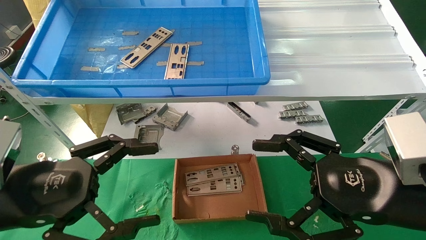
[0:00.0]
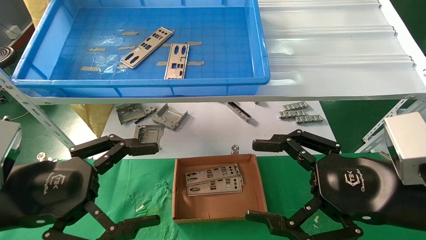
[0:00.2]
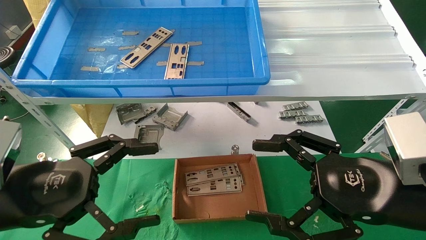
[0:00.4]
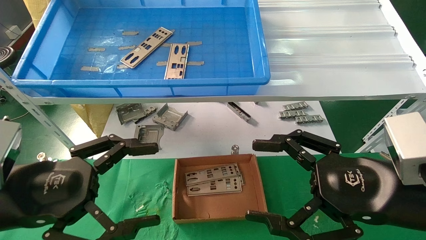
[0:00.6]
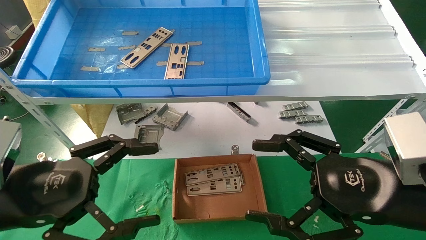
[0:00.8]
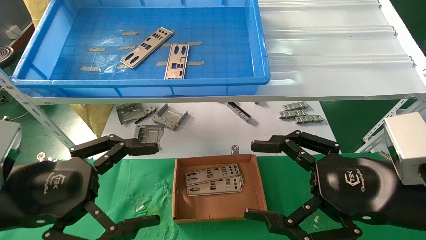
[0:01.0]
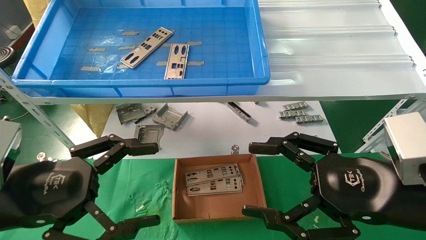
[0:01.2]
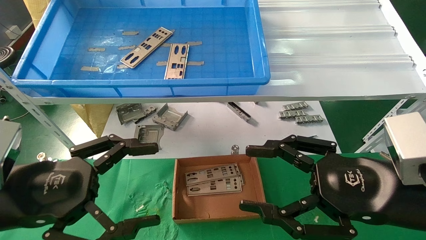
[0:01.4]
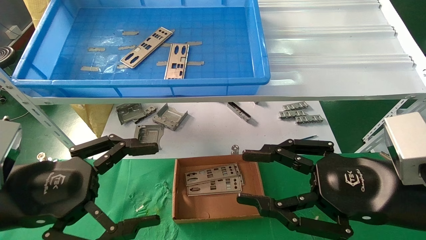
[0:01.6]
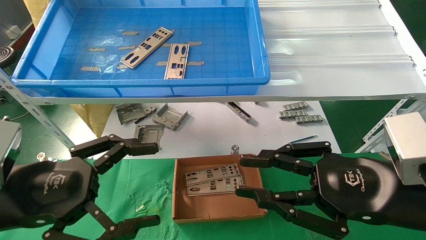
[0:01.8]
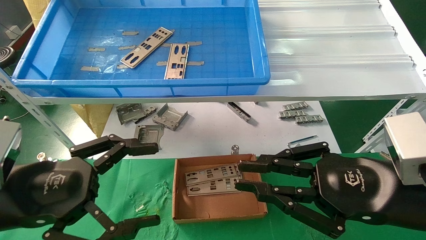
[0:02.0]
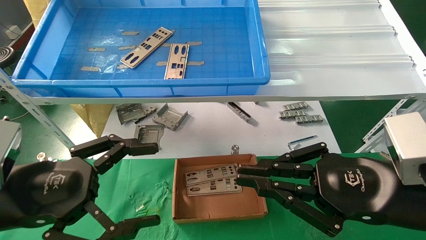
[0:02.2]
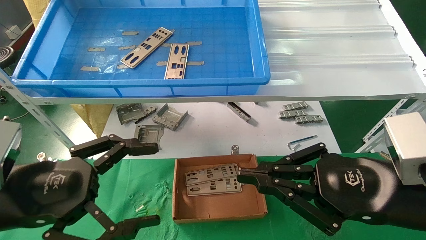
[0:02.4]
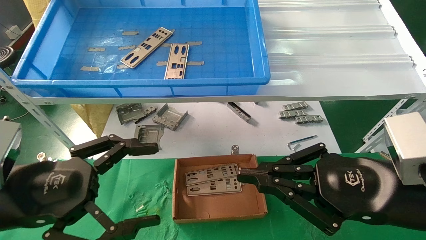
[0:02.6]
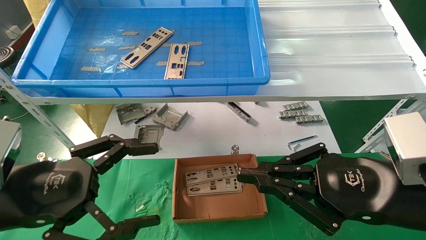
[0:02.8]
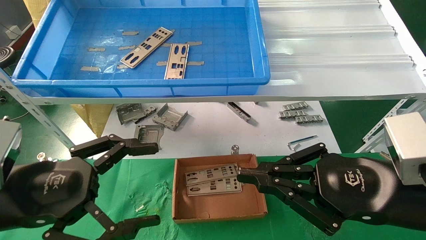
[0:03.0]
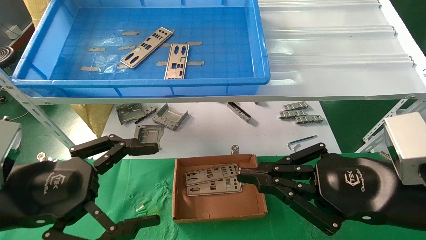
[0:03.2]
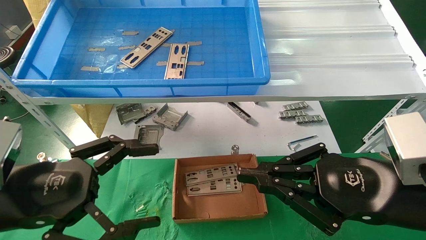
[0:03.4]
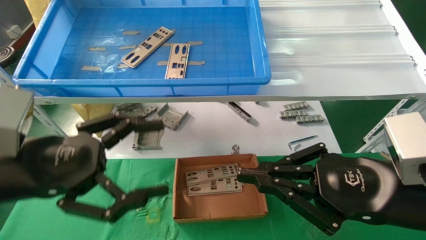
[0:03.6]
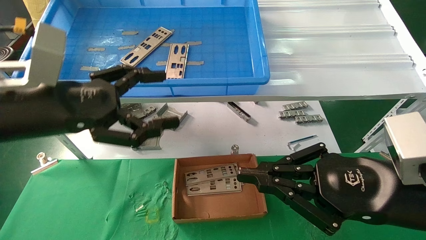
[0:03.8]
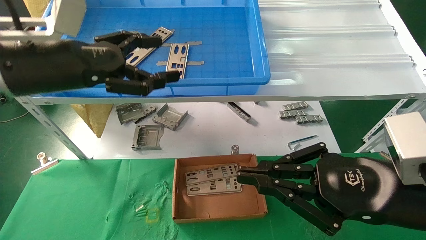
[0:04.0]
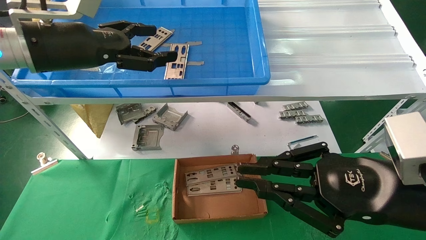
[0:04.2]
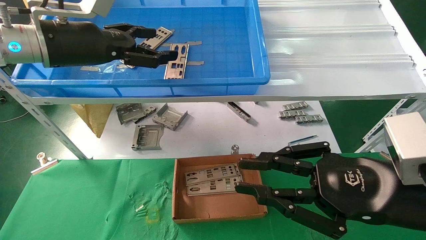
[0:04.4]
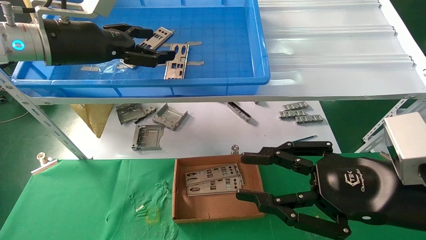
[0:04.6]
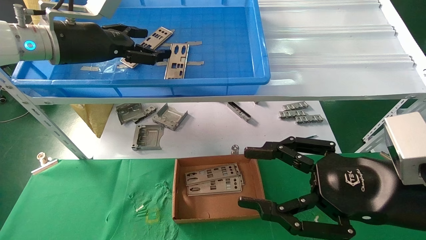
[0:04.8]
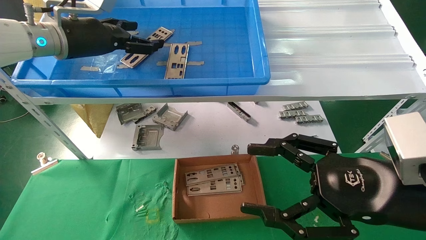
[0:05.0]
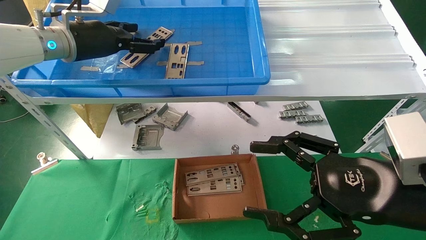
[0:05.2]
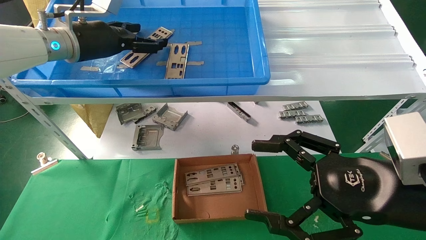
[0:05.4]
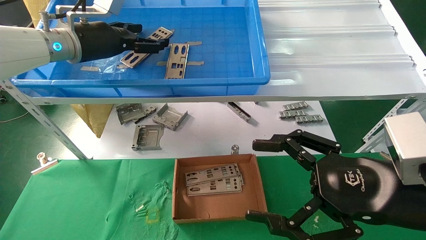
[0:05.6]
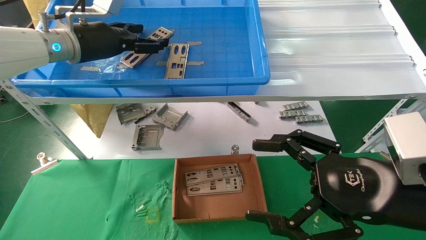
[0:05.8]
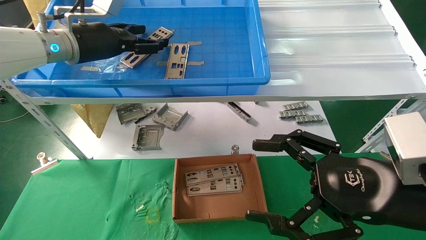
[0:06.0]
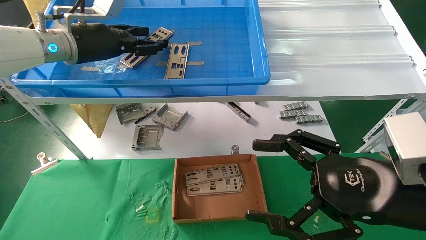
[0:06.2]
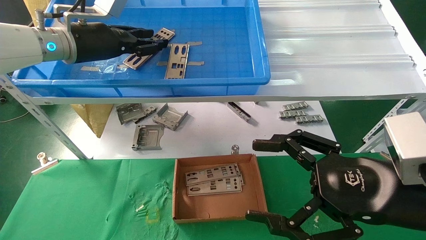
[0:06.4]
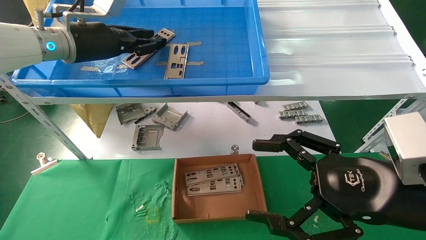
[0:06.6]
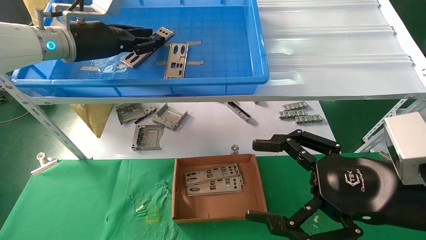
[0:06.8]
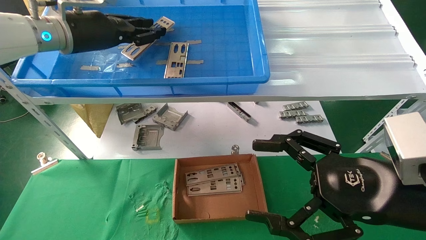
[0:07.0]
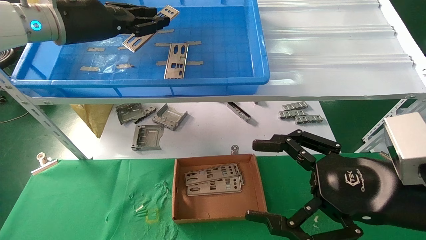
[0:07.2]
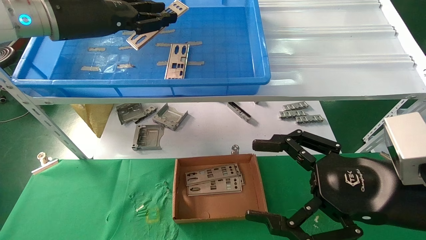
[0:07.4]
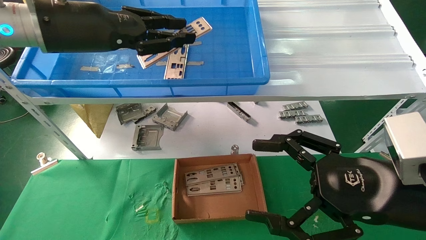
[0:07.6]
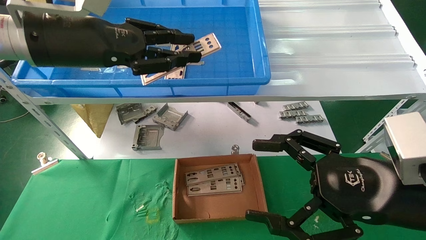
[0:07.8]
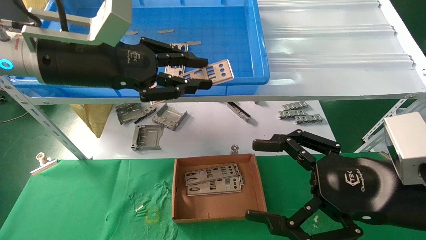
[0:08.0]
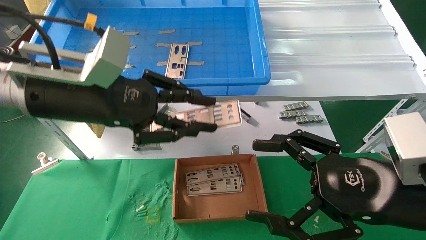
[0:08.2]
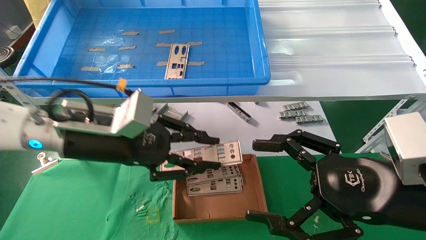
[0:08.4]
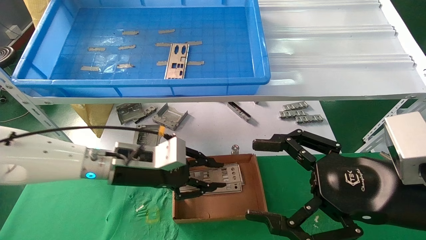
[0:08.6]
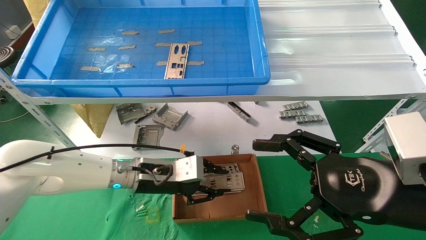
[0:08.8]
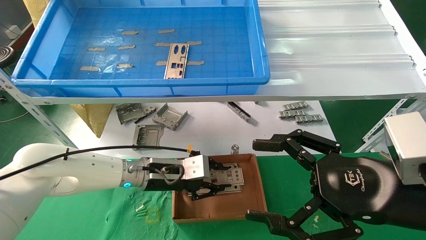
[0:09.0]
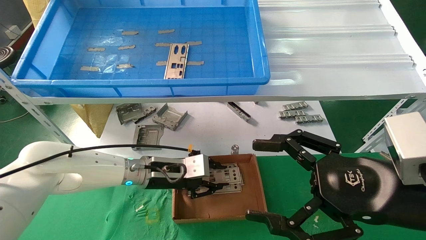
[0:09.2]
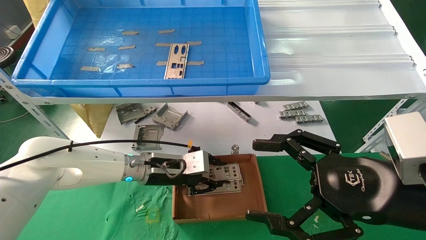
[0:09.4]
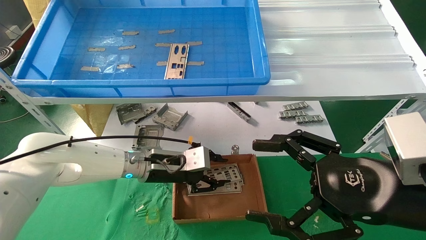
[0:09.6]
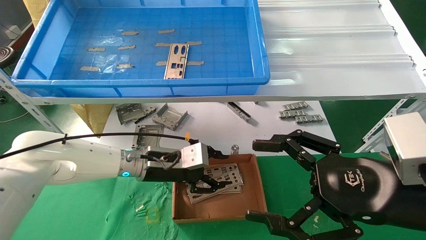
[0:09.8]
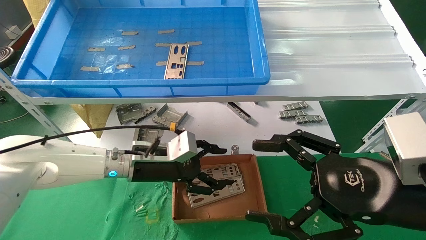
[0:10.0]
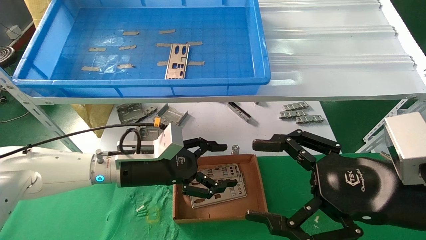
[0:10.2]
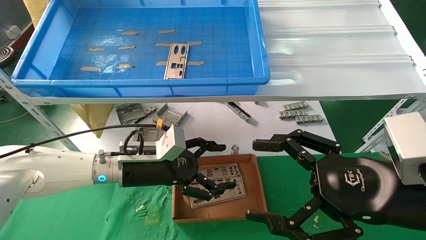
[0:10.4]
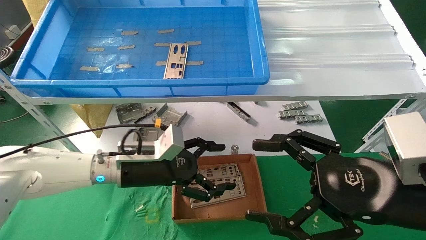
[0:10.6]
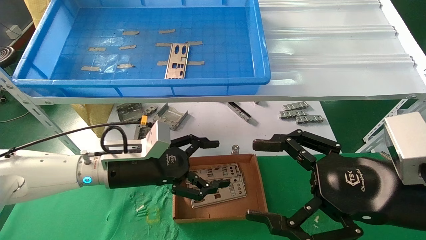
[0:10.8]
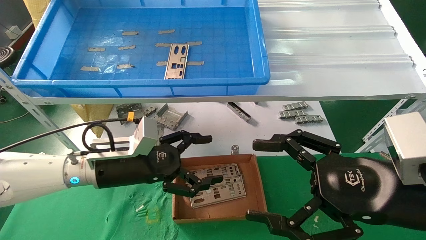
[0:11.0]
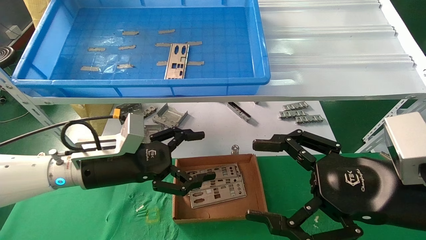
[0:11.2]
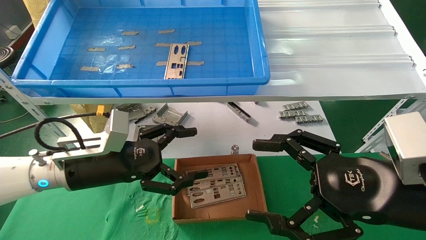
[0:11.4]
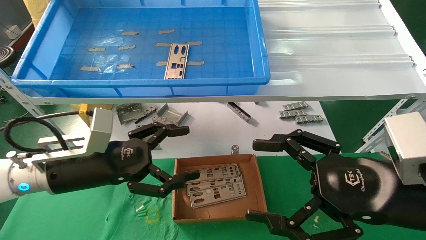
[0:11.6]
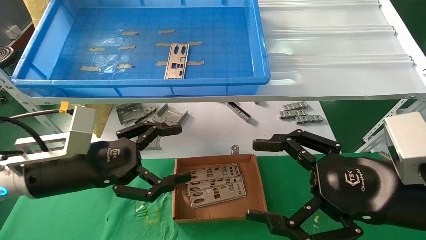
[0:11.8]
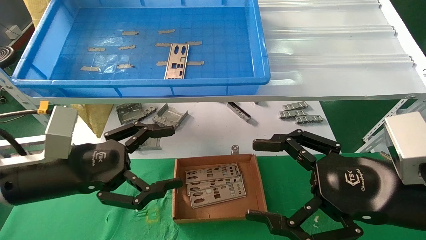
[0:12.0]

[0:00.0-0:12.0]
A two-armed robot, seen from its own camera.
Task of the whole recording: pick up the parts on the tray and put them in the cardboard box.
Step, 0:03.8 to 0:06.8: Pick up the IO bracket from the container box.
Step, 0:07.0 to 0:09.6: Place the IO bracket into the ingredient slot.
0:00.0 to 0:01.6: The right gripper closes up.
0:01.6 to 0:03.0: The right gripper closes its fingers.
0:03.0 to 0:04.4: The left gripper travels forward and upward by about 25 cm.
0:04.4 to 0:06.0: The left gripper moves forward, roughly 5 cm. Meanwhile the right gripper opens its fingers.
0:06.0 to 0:07.6: The left gripper heads backward, covering about 10 cm, and closes up.
0:07.6 to 0:09.0: The left gripper travels downward by about 30 cm.
0:09.0 to 0:10.4: The left gripper opens up.
0:10.4 to 0:12.0: The left gripper shifts approximately 15 cm backward, to the left and upward.

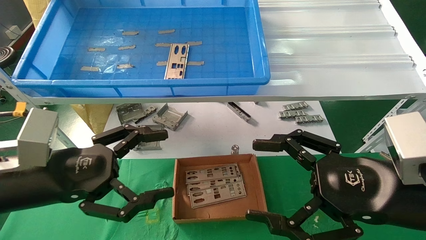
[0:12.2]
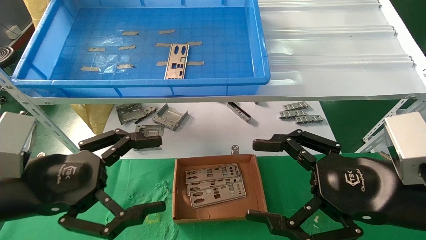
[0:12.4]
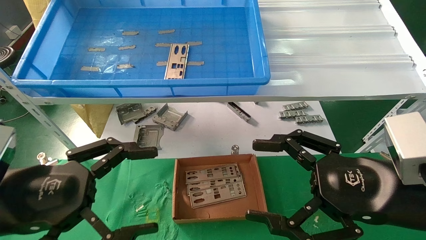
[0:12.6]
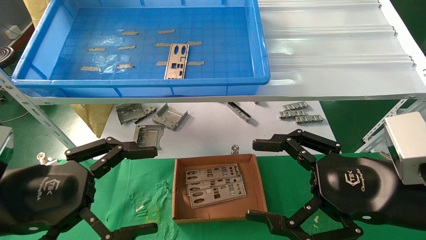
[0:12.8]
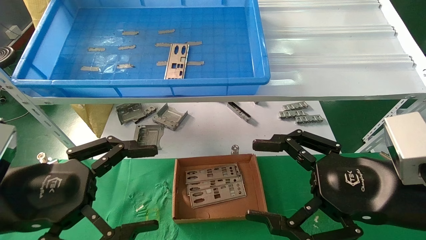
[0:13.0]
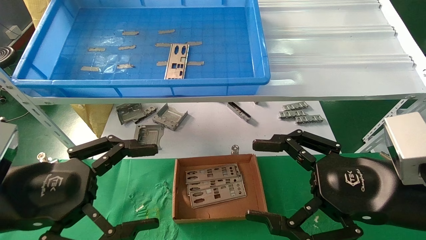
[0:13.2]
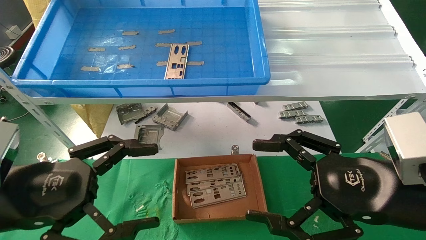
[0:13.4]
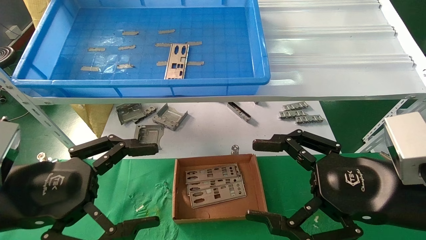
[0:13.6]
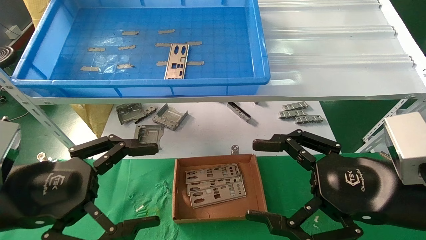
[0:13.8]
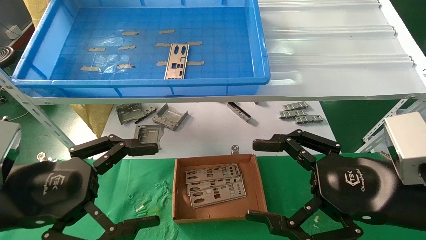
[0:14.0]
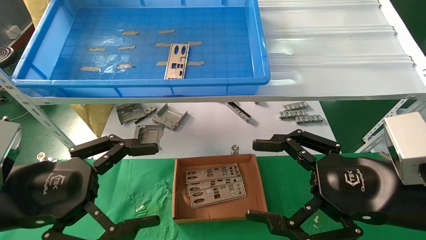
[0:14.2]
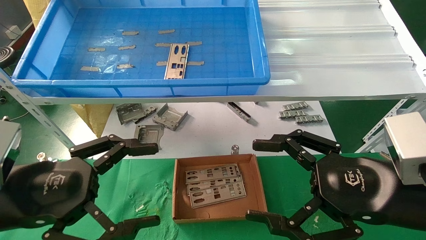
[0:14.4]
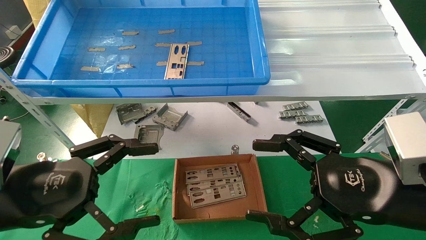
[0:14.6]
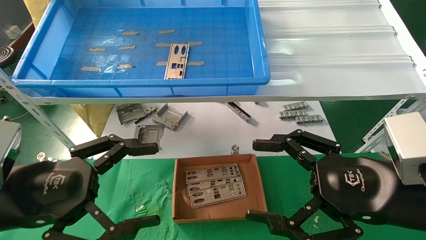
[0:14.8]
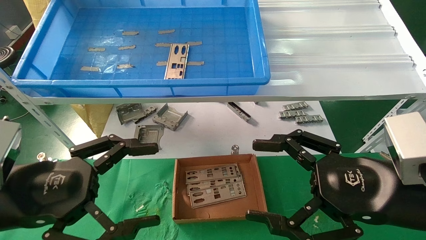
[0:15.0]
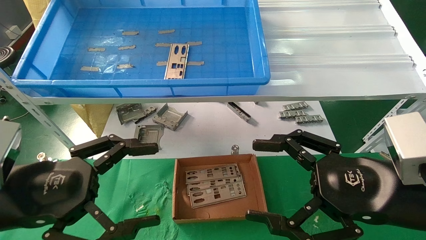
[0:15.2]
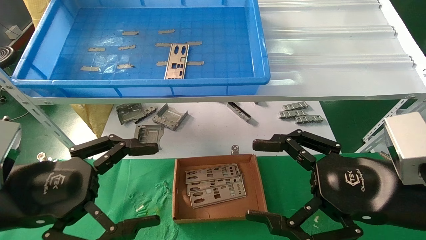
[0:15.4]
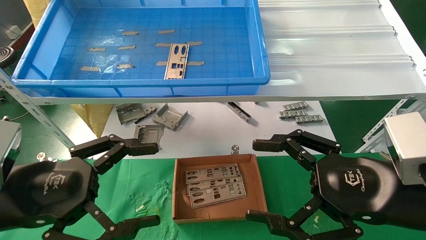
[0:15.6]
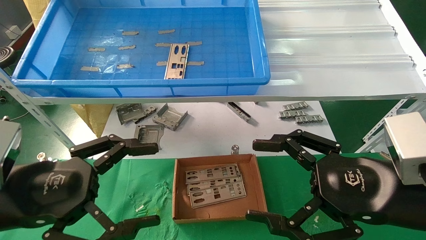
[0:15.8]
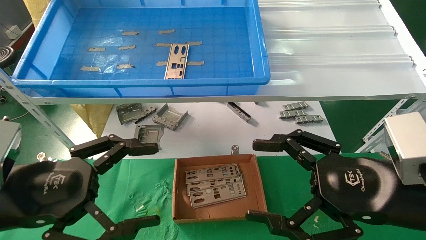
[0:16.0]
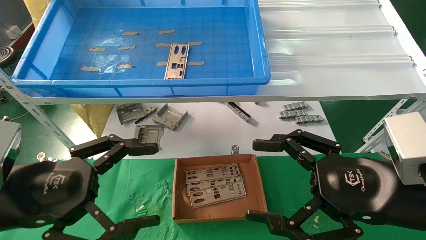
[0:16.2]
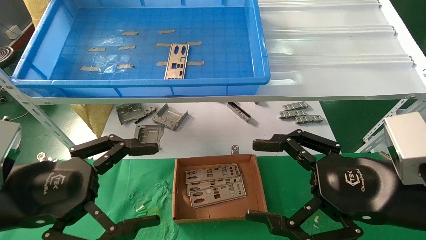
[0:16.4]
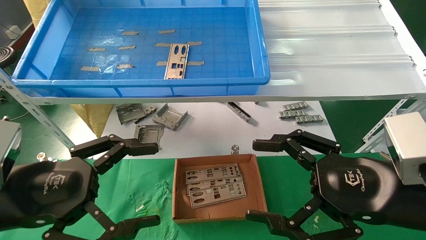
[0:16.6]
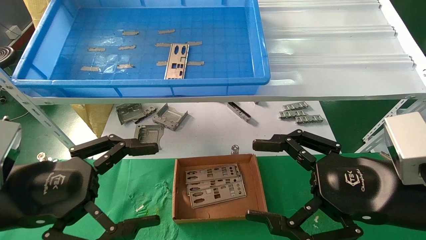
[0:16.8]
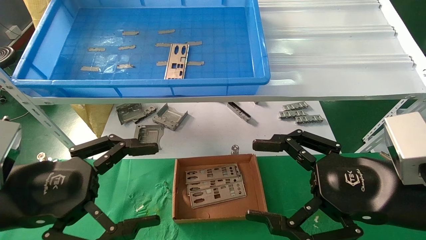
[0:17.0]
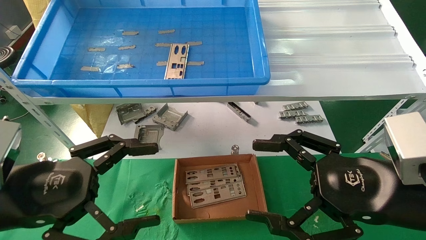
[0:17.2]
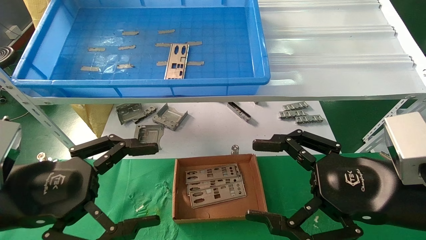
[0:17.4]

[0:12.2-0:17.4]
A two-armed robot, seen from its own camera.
Task of the whole recording: pick up the parts on the tray and put them in the cardboard box.
0:12.2 to 0:14.0: The grippers stay close to where they were, moving slightly.
0:14.0 to 0:17.4: The two grippers keep their place.
